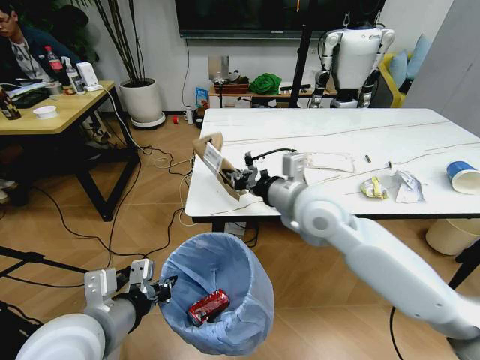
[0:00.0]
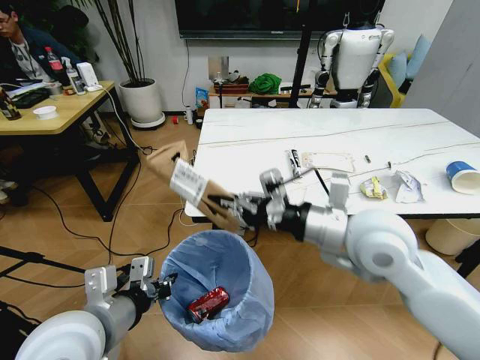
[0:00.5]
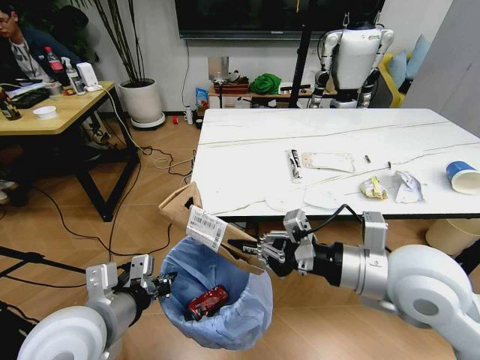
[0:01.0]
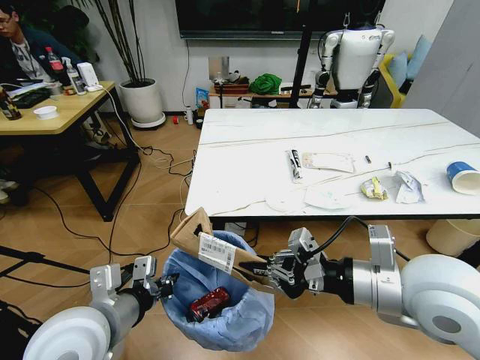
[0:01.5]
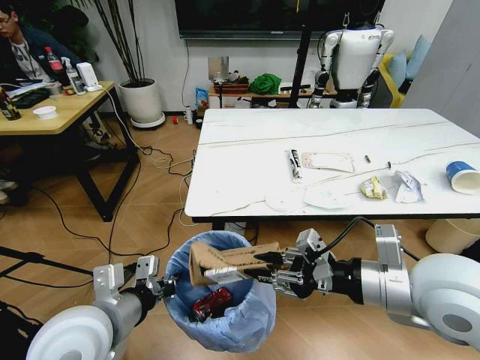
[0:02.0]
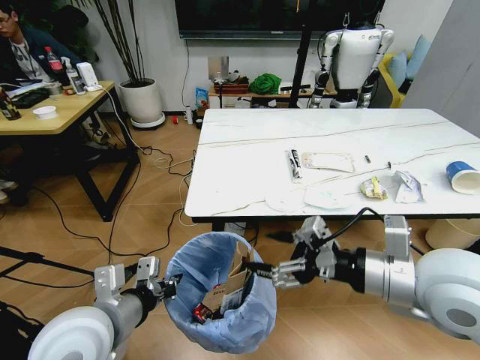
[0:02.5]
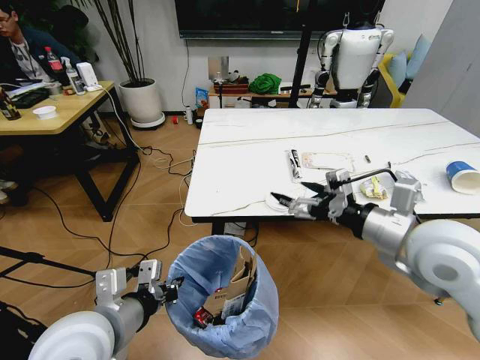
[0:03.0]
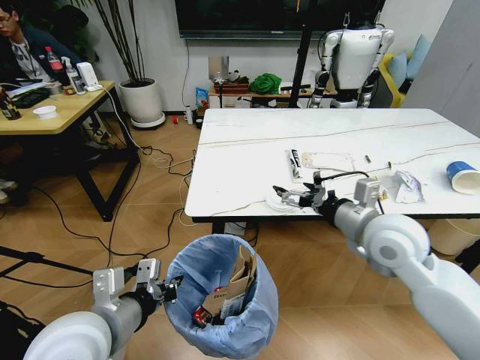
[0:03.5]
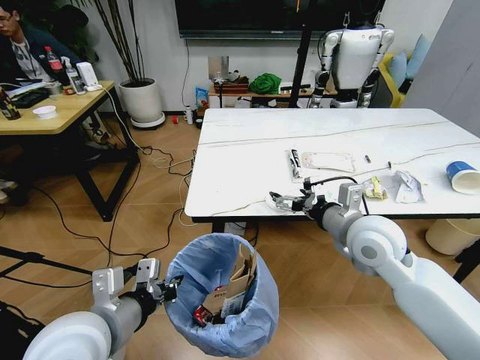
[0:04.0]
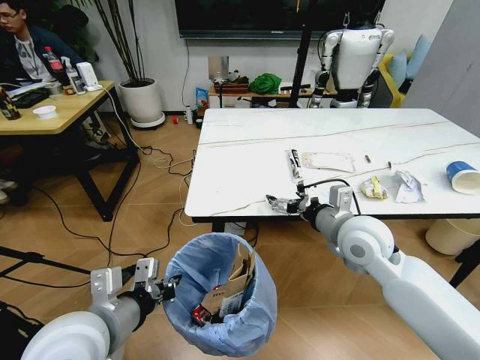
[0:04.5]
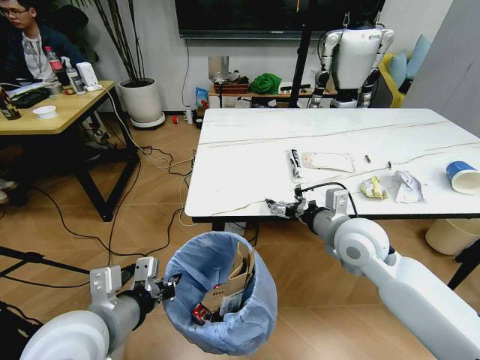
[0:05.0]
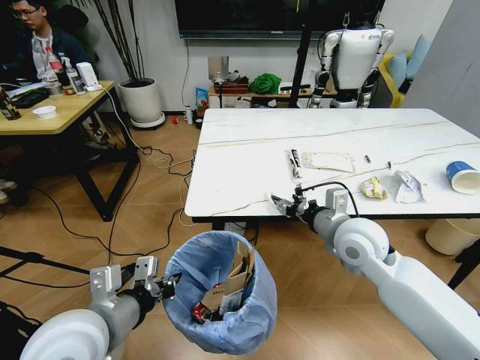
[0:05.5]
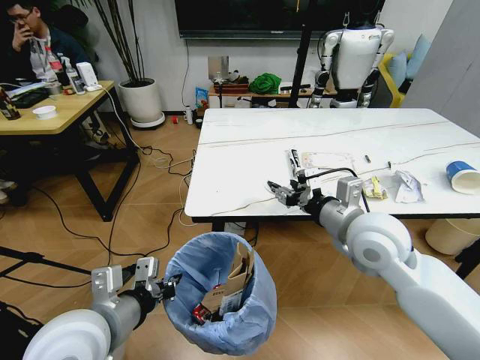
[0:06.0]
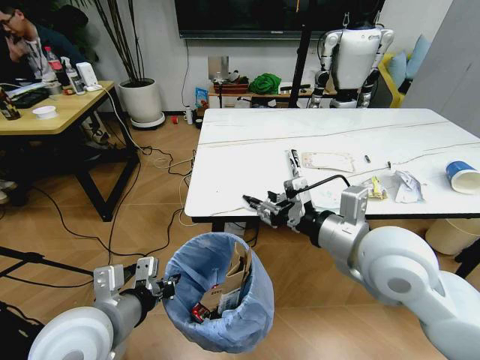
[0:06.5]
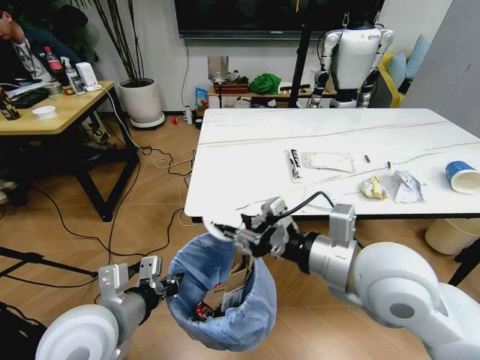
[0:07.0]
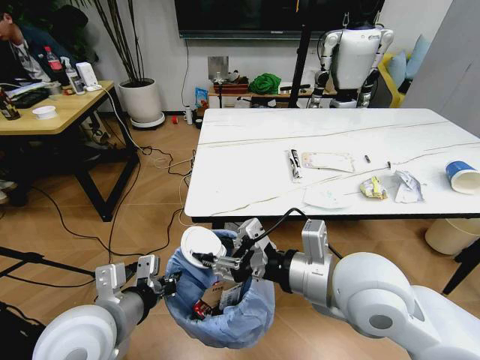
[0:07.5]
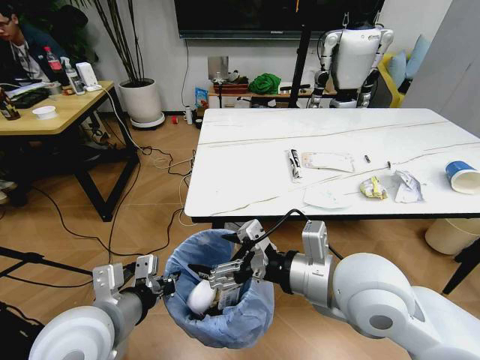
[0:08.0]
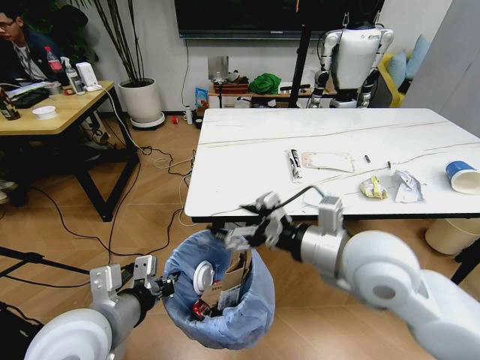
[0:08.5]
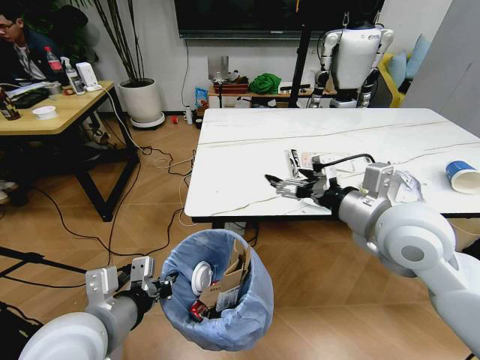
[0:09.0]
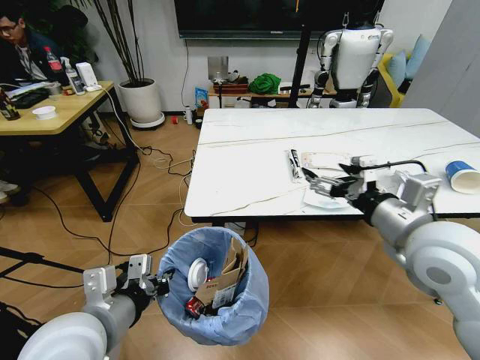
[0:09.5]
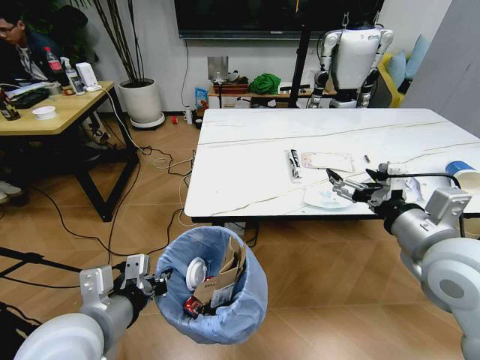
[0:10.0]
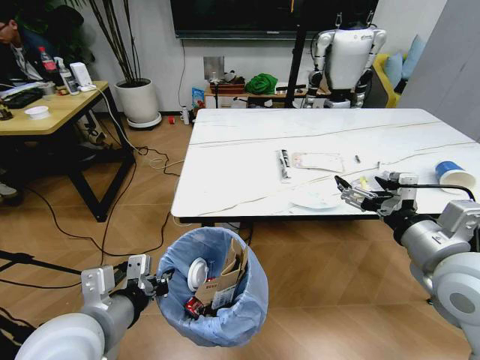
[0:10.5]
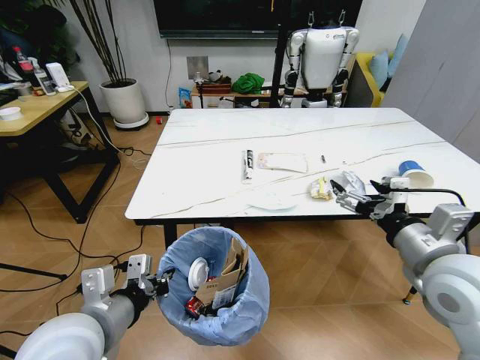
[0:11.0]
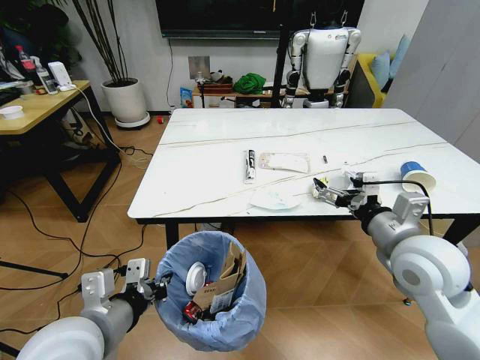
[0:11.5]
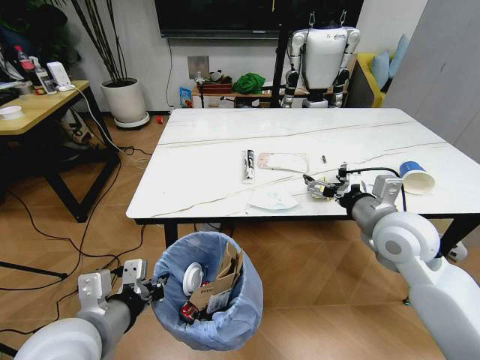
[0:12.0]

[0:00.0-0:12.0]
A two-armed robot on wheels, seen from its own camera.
Task of the whole recording: Pick up the trash bin and place the trash from the table into it.
0:00.0 to 0:02.0: The right gripper shifts roughly 20 cm backward and to the right.
0:02.0 to 0:04.0: The right gripper moves forward and downward, roughly 15 cm, and opens its fingers.
0:04.0 to 0:06.0: The right gripper closes up.
0:06.0 to 0:08.0: The right gripper goes roughly 10 cm backward and to the left, and opens.
0:08.0 to 0:10.0: The right gripper is displaced to the right by roughly 15 cm.
0:10.0 to 0:12.0: The right gripper moves forward, approximately 10 cm.

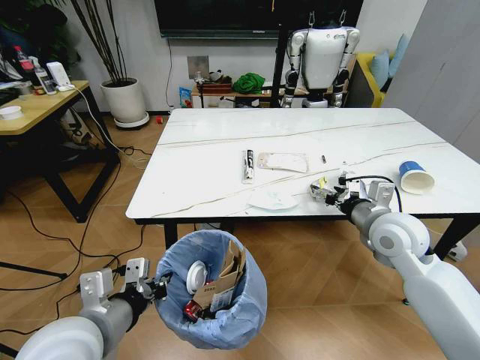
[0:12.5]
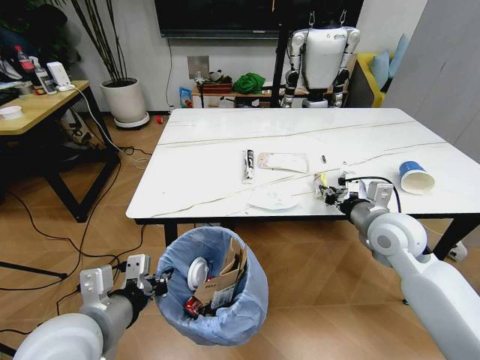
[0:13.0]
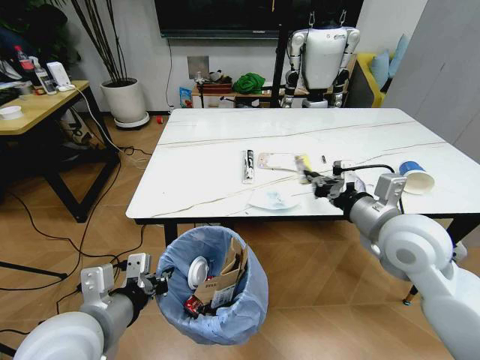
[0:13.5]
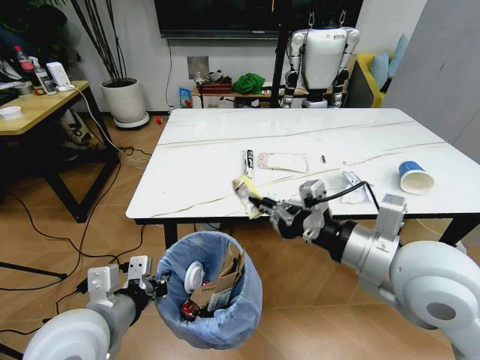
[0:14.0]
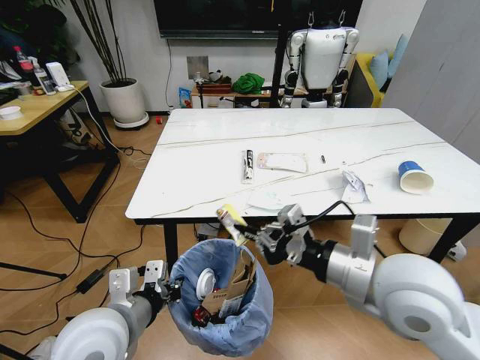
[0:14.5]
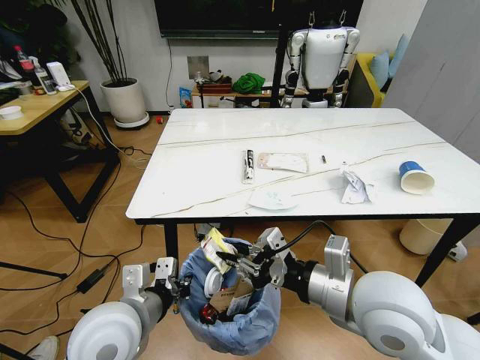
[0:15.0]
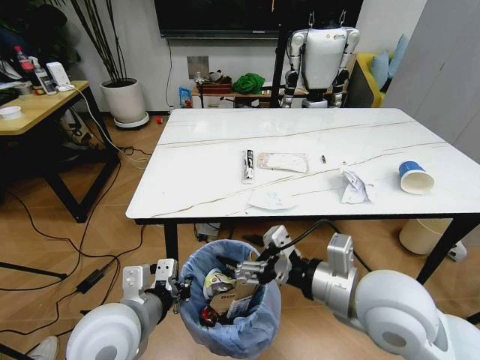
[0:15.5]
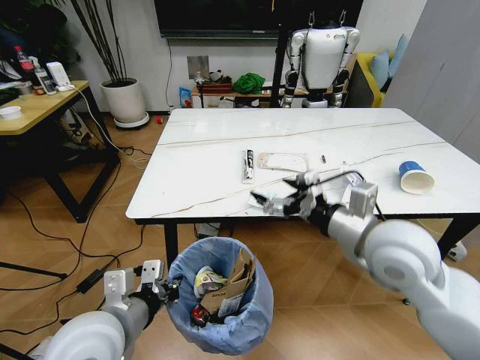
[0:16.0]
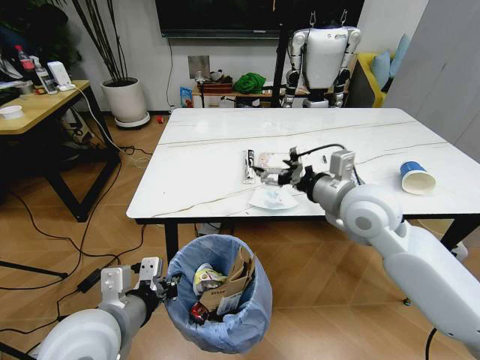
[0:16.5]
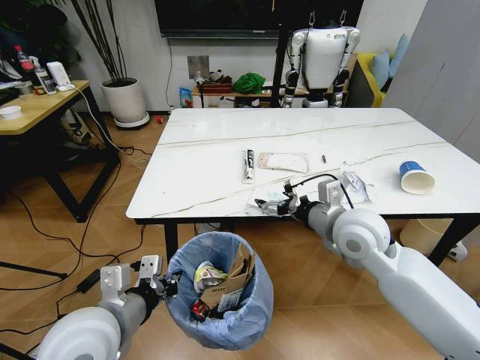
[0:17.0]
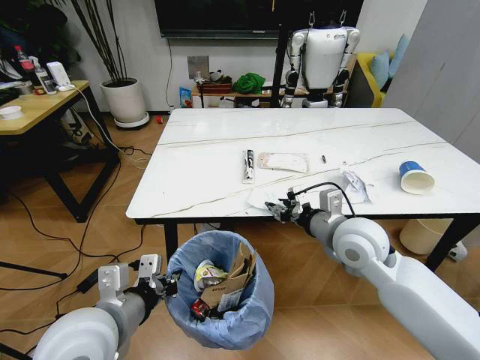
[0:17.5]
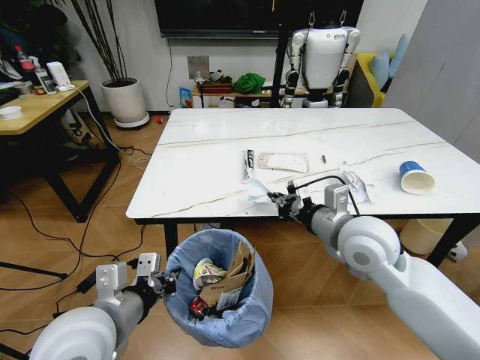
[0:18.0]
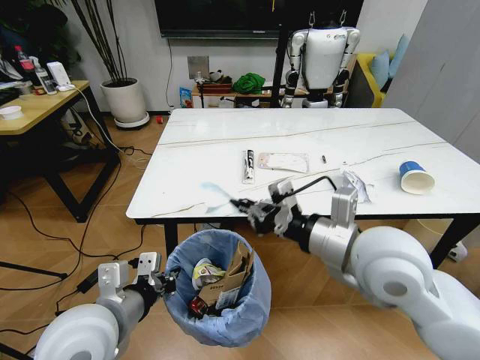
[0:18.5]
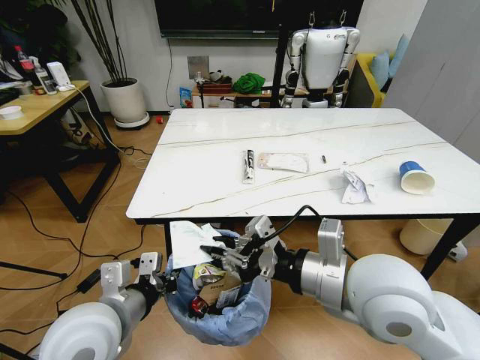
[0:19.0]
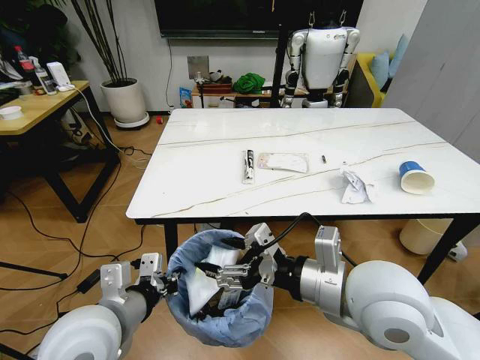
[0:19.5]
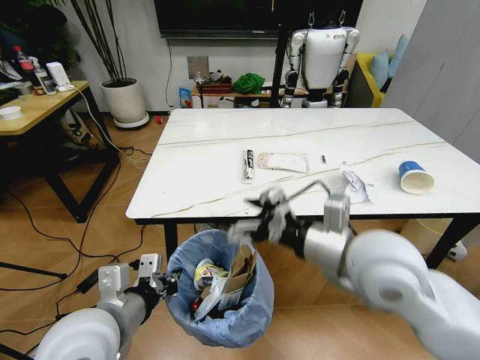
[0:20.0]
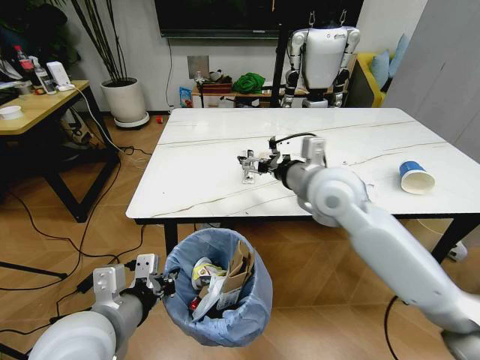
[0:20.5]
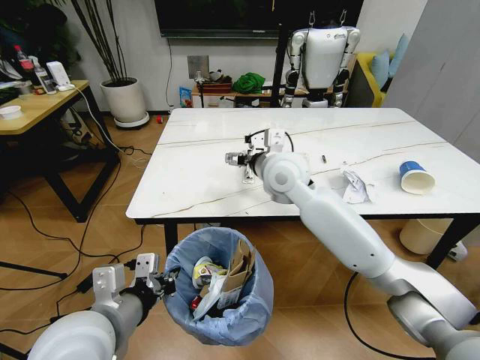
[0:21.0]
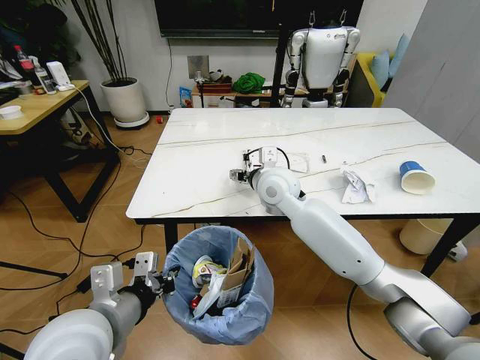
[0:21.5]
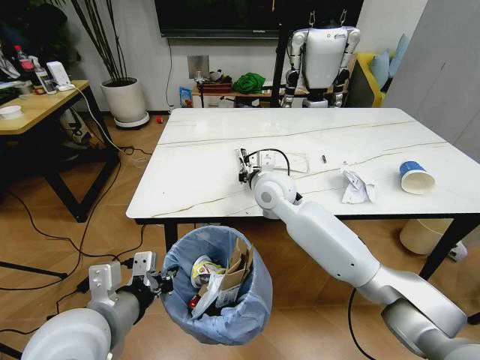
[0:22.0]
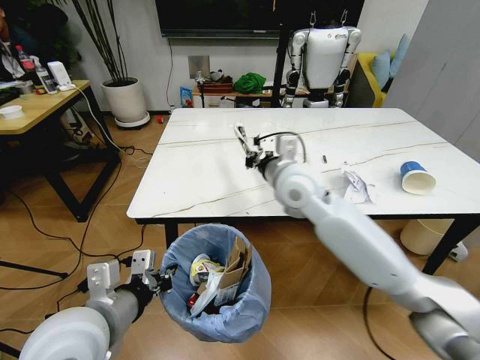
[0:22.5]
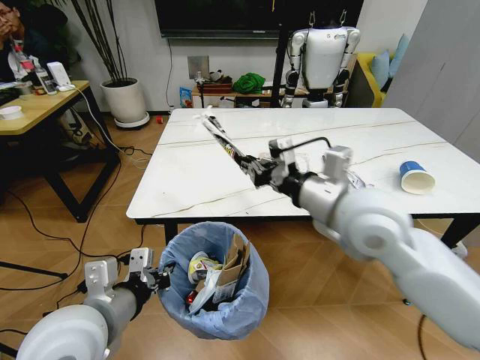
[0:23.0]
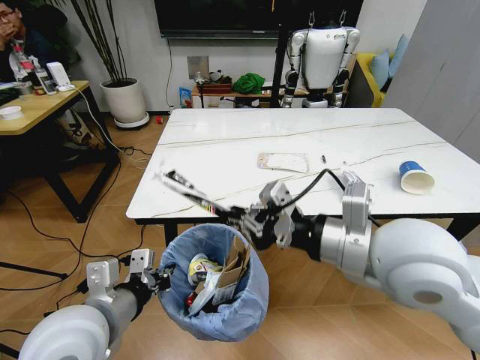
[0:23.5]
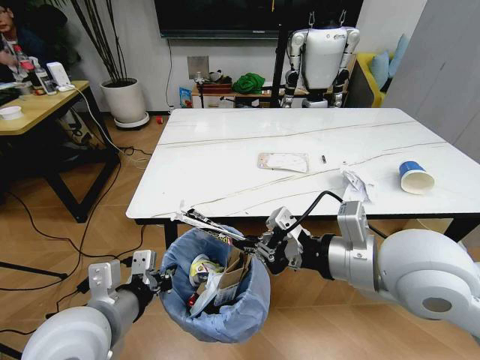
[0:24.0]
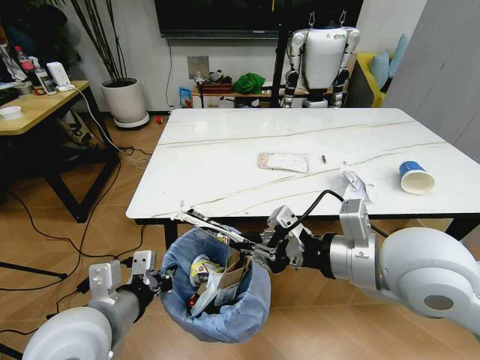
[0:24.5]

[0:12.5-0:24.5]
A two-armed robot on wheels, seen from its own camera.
Task of the whole recording: Pick up the trash bin and place the trash from the table into it.
0:12.5 to 0:14.5: The right gripper moves backward, to the left and upward, approximately 15 cm, and closes its fingers.
0:14.5 to 0:16.5: The right gripper moves forward, roughly 15 cm, and opens up.
0:16.5 to 0:18.5: The right gripper goes roughly 10 cm backward, and closes.
0:18.5 to 0:20.5: The right gripper is displaced forward by some 15 cm, and opens up.
0:20.5 to 0:22.5: The right gripper closes up.
0:22.5 to 0:24.5: The right gripper moves backward and to the right, roughly 20 cm.

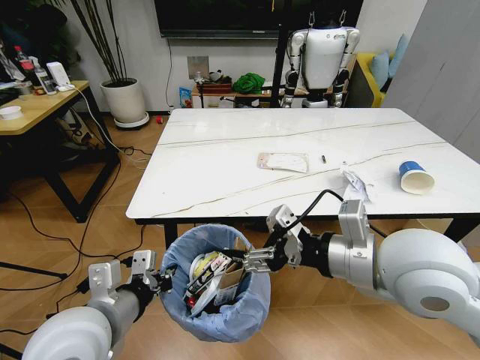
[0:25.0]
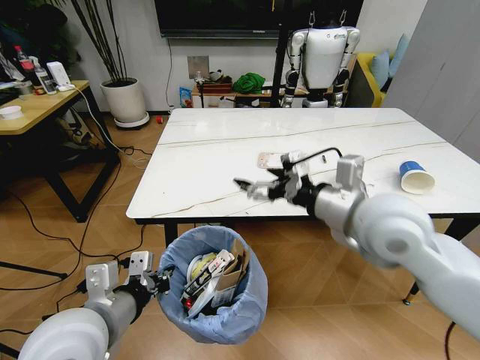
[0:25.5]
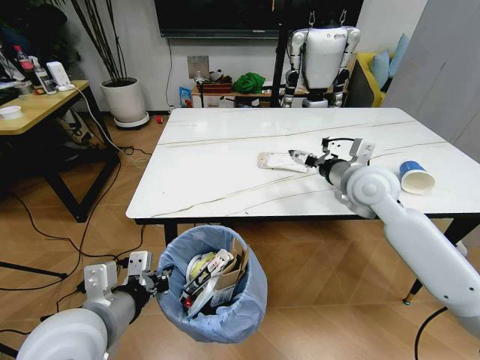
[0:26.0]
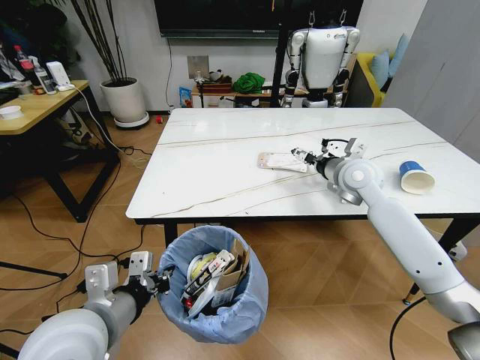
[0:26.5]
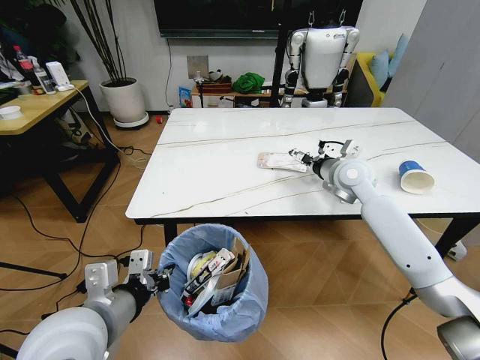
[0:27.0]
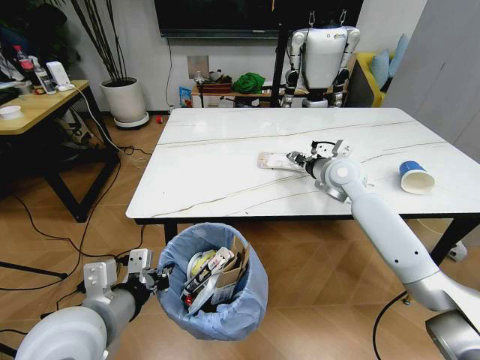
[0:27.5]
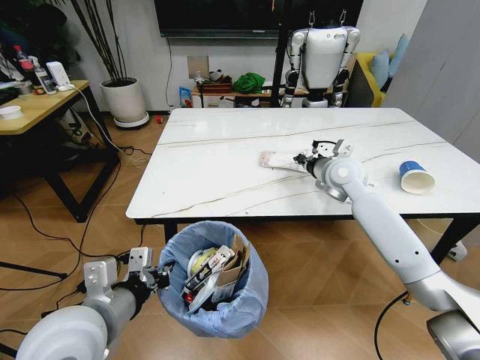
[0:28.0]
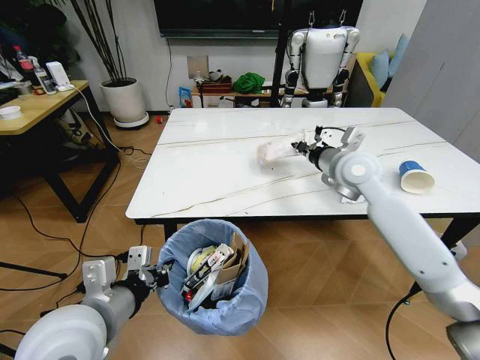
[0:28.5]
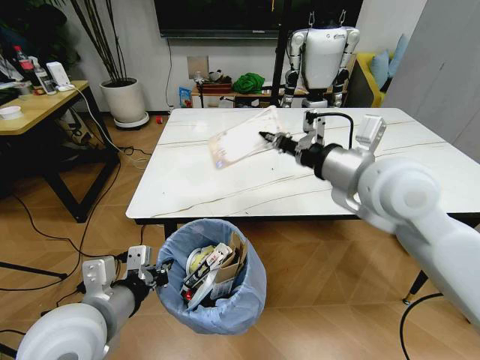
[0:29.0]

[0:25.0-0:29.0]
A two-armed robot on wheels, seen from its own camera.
Task of the whole recording: Pick up the trash bin and place the trash from the table into it.
0:25.0 to 0:27.0: The right gripper heads forward, covering some 25 cm.
0:27.0 to 0:29.0: The right gripper heads backward and upward, covering roughly 20 cm, and closes up.
